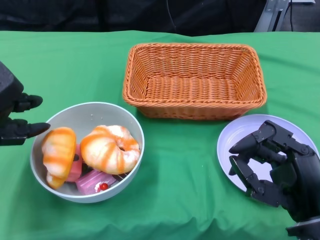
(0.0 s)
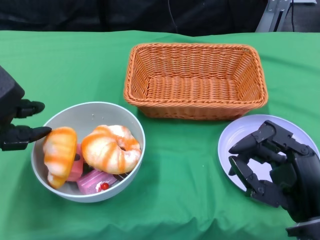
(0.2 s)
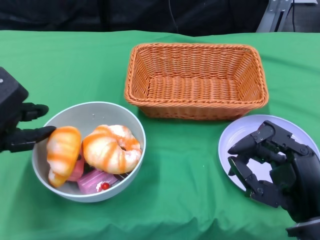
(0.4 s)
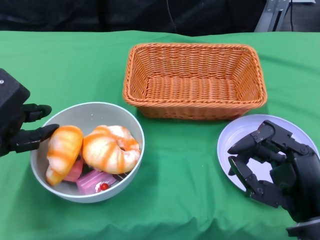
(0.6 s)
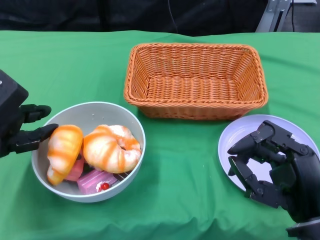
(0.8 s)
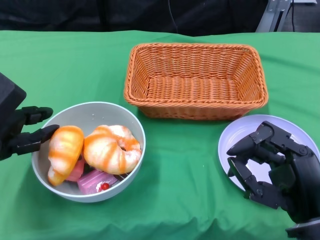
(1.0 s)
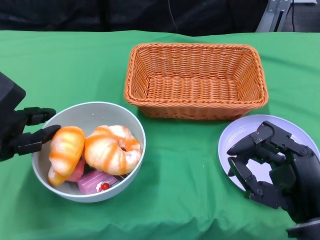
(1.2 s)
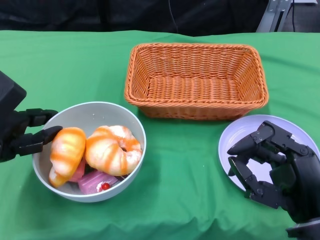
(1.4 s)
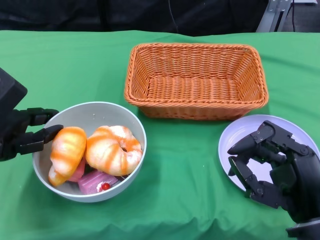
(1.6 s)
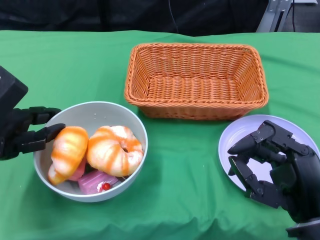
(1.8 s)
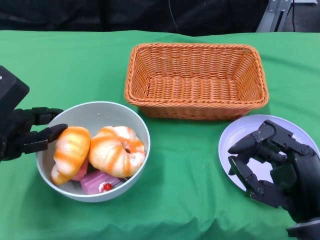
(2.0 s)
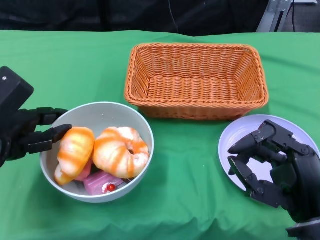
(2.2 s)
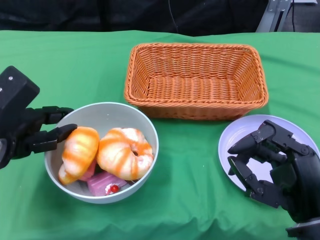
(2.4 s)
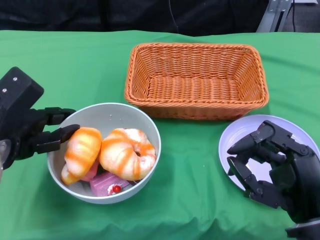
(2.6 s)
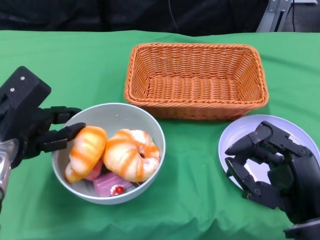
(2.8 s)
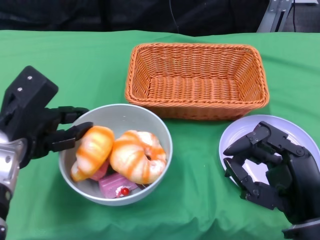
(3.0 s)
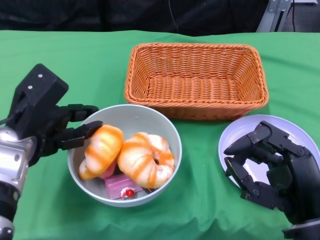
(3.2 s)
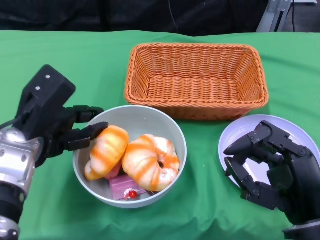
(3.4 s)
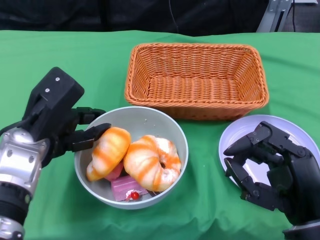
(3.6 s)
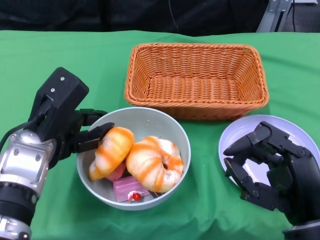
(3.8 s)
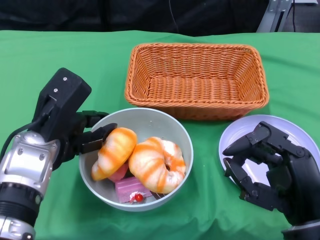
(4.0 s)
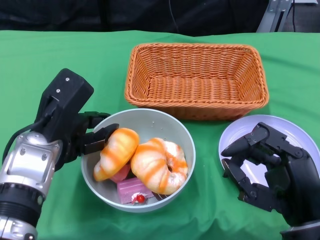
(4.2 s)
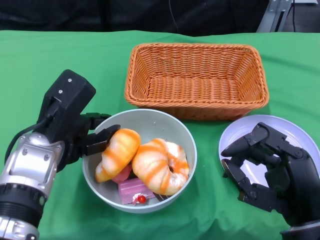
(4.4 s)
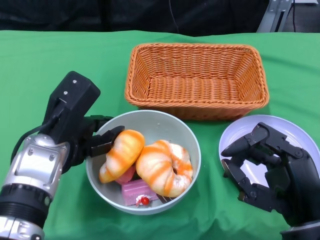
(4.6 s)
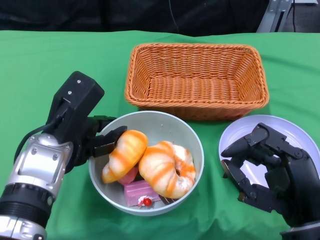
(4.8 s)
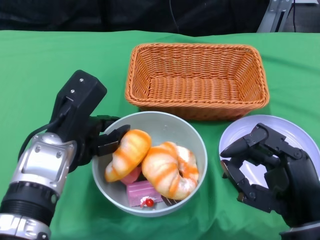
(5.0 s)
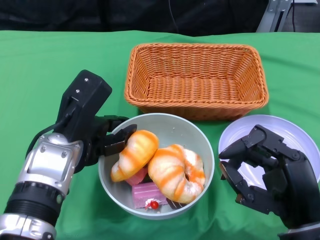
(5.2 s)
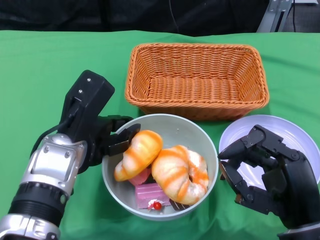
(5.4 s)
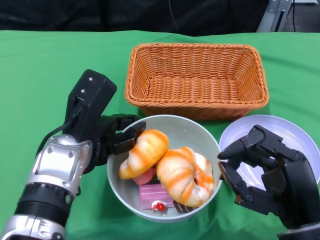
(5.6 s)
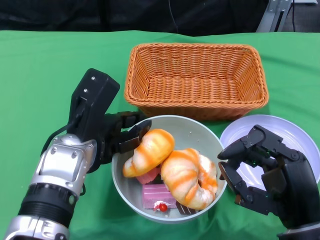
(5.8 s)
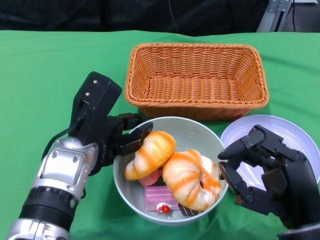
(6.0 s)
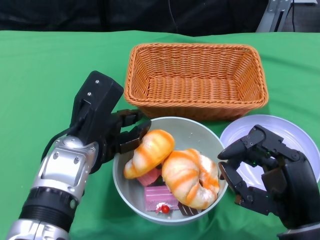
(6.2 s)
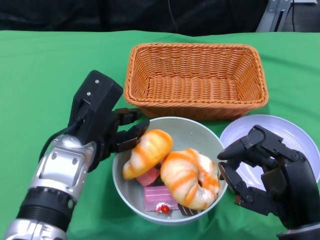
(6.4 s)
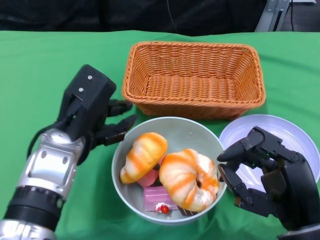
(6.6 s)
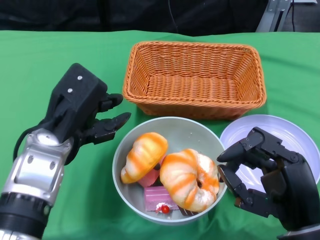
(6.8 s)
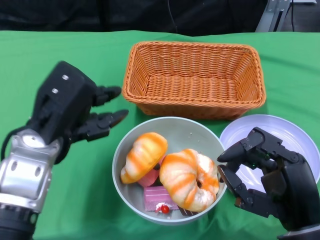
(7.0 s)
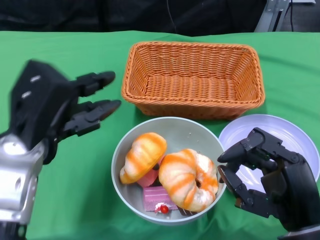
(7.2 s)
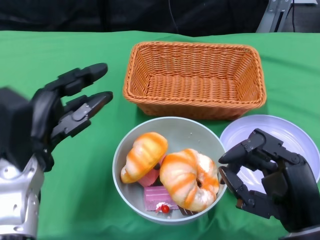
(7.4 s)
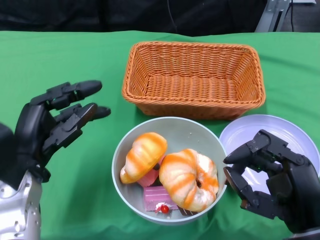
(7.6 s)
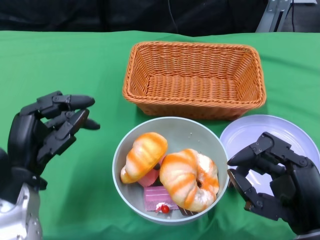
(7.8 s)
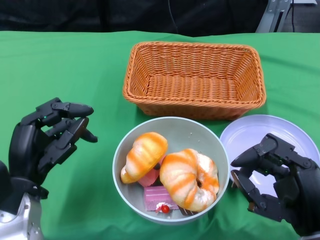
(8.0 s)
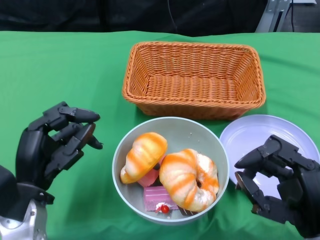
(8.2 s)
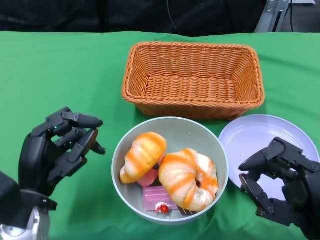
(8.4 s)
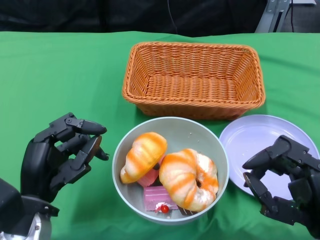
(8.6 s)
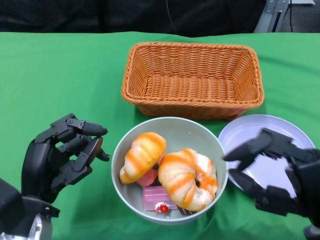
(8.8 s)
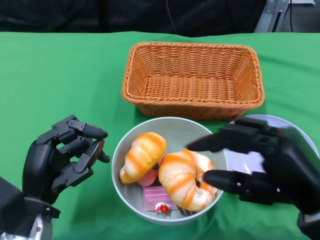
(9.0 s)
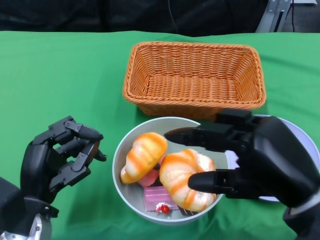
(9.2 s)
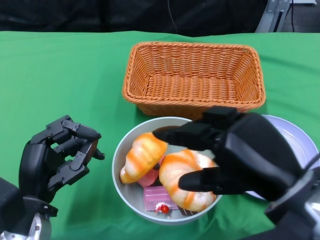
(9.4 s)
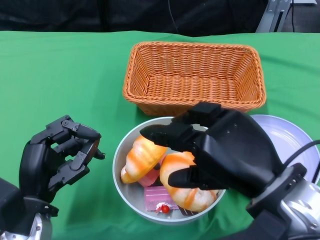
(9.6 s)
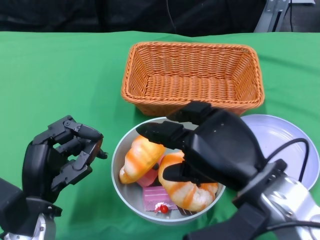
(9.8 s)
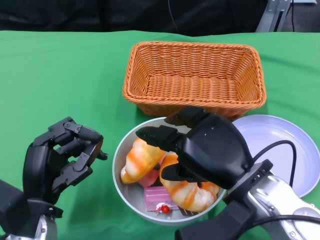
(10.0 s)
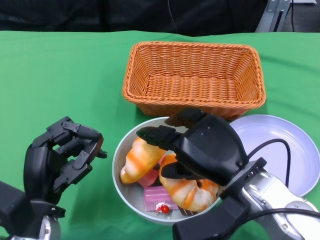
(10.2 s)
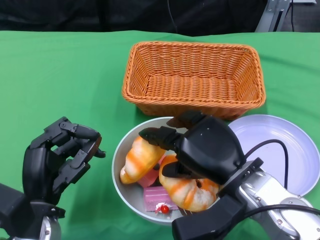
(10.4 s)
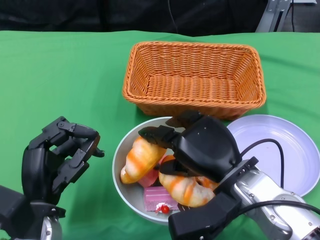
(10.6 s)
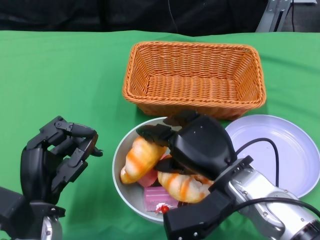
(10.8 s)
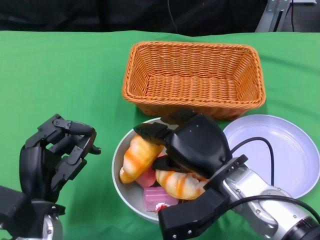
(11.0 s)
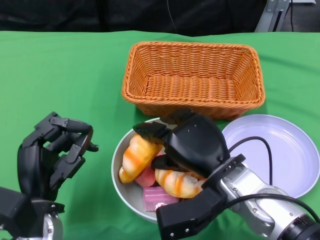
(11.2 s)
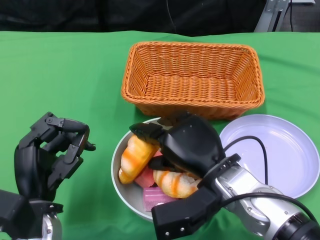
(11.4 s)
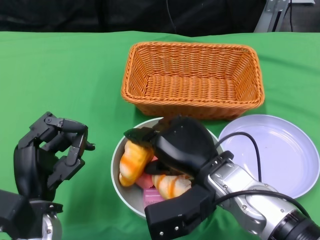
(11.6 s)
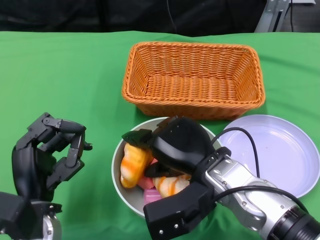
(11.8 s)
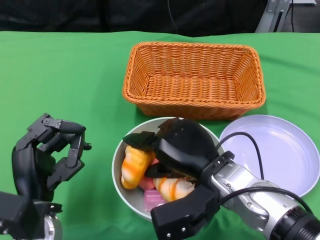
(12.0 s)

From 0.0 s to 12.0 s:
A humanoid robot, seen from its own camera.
Step, from 1.8 s to 8.4 s: Place the bowl in the center of the table with the left gripper.
From 0.0 s to 1.6 s: The hands stay close to where they were, moving slightly.
From 3.0 s to 4.4 s: The left hand shifts about 5 cm to the right.
From 6.0 s to 7.6 s: The left hand goes some 10 cm to the left.
From 7.6 s to 9.0 s: The right hand goes approximately 5 cm upward. Meanwhile the left hand moves some 5 cm.
From 9.0 s to 10.4 s: The right hand moves to the left and forward, approximately 10 cm.

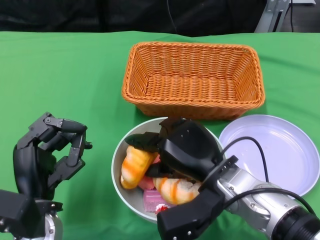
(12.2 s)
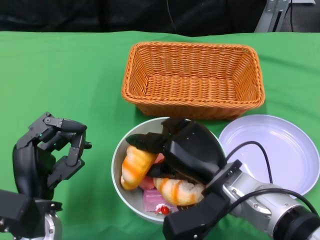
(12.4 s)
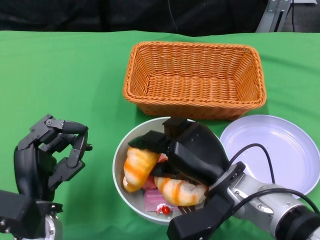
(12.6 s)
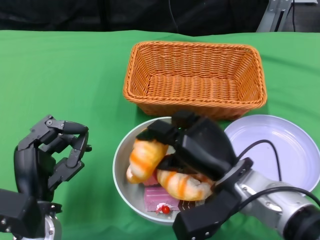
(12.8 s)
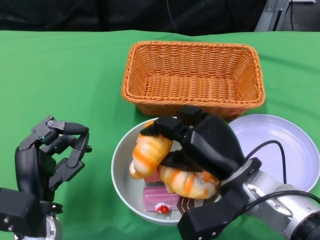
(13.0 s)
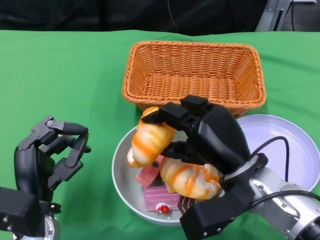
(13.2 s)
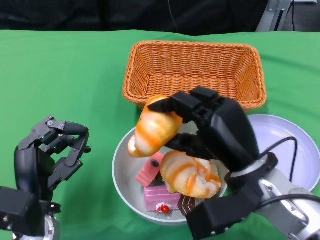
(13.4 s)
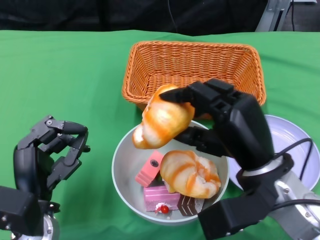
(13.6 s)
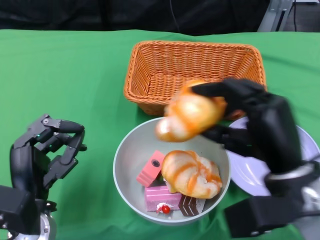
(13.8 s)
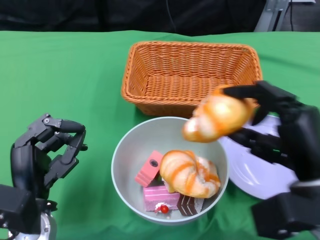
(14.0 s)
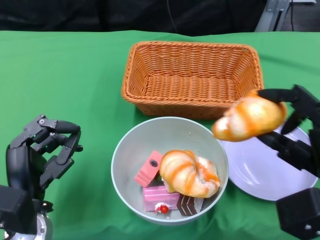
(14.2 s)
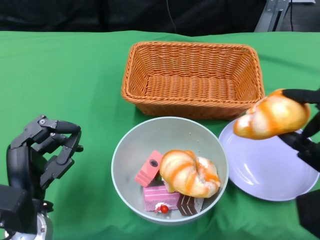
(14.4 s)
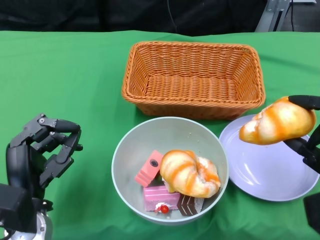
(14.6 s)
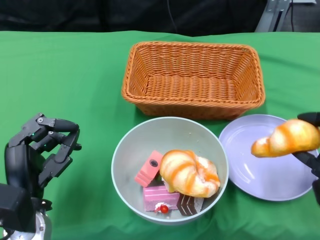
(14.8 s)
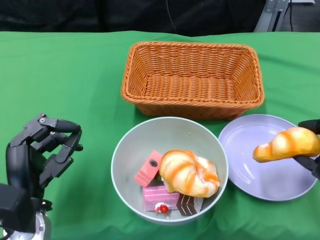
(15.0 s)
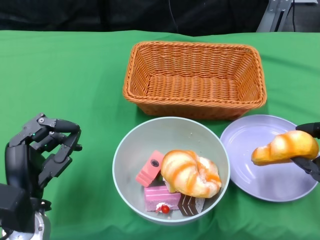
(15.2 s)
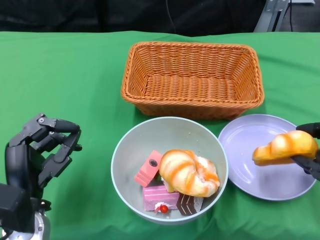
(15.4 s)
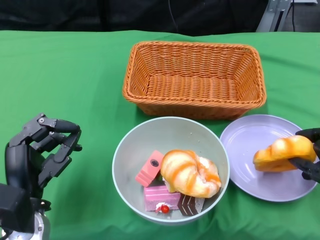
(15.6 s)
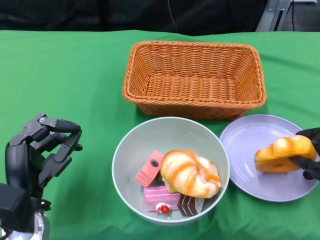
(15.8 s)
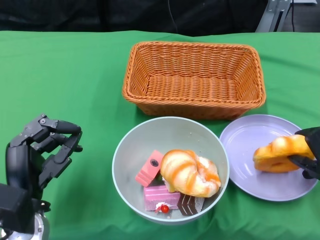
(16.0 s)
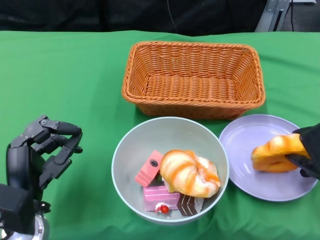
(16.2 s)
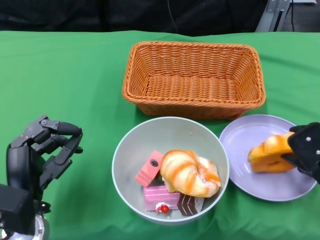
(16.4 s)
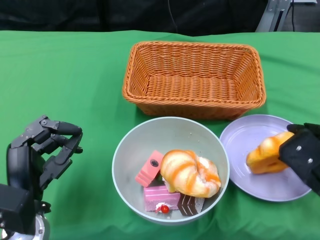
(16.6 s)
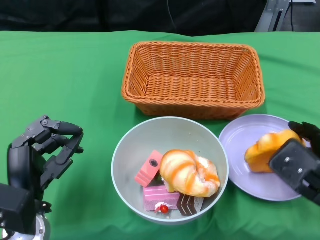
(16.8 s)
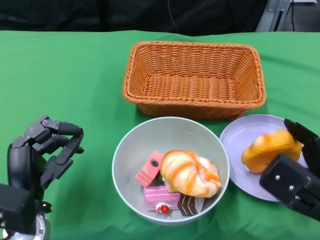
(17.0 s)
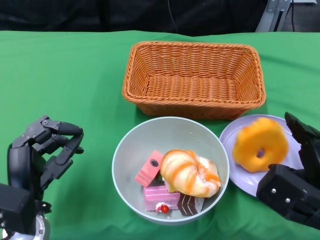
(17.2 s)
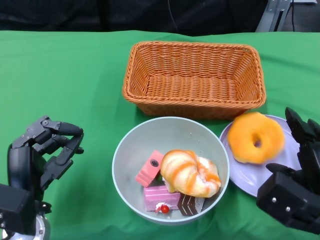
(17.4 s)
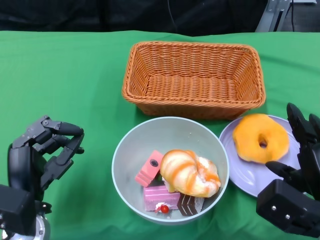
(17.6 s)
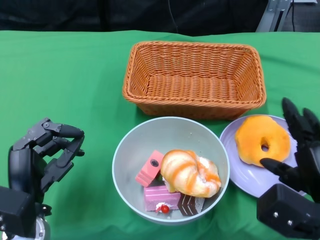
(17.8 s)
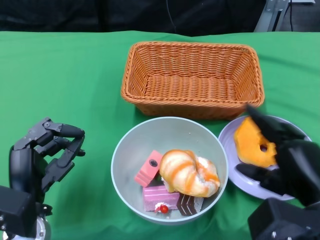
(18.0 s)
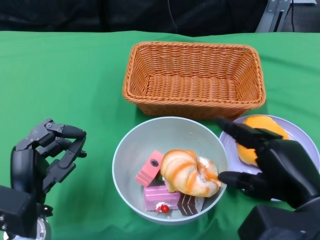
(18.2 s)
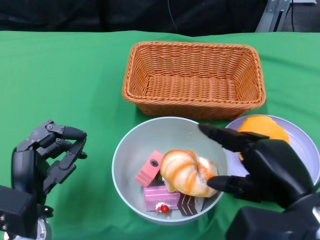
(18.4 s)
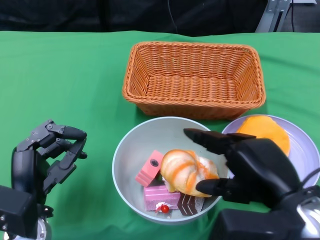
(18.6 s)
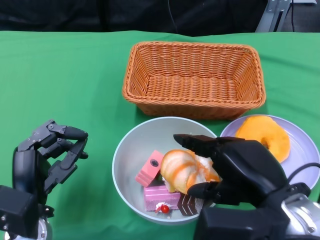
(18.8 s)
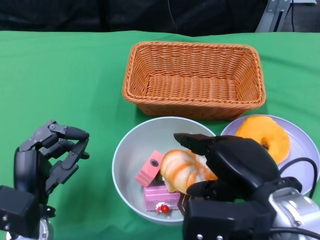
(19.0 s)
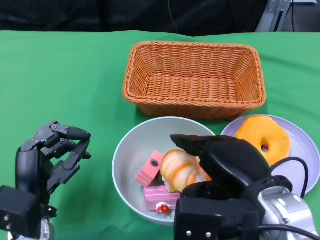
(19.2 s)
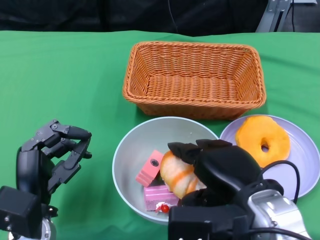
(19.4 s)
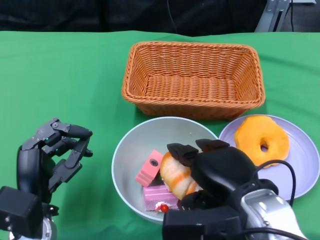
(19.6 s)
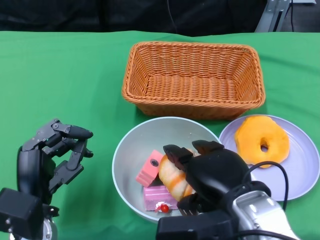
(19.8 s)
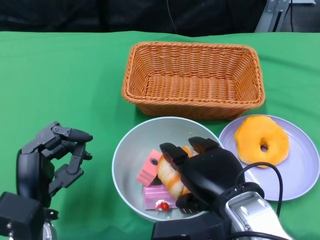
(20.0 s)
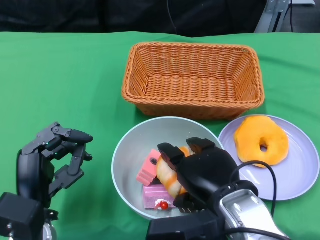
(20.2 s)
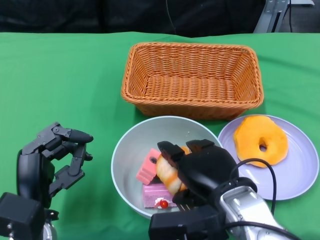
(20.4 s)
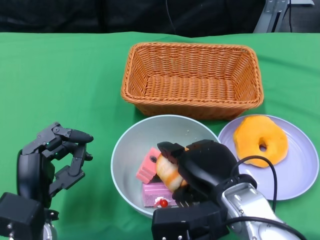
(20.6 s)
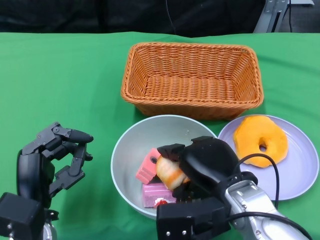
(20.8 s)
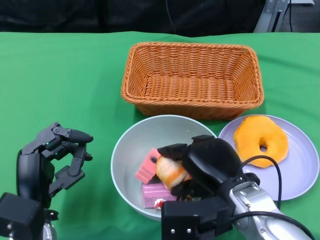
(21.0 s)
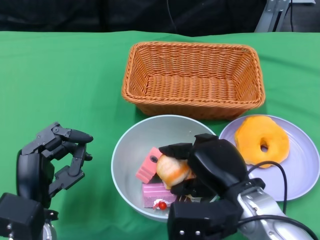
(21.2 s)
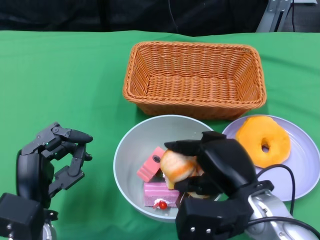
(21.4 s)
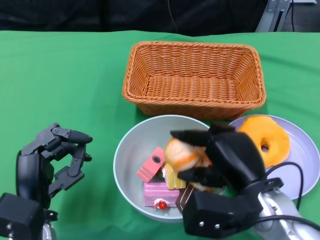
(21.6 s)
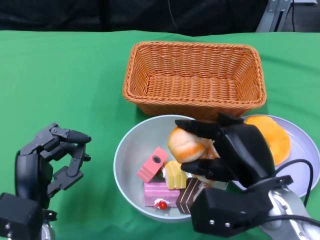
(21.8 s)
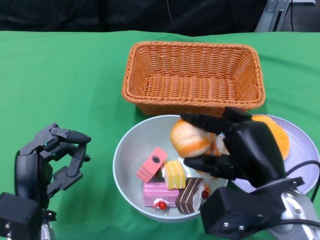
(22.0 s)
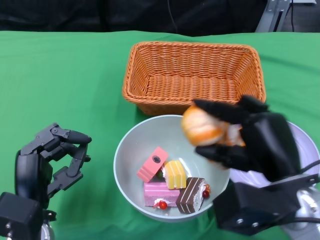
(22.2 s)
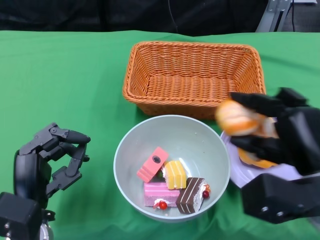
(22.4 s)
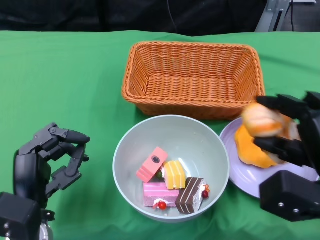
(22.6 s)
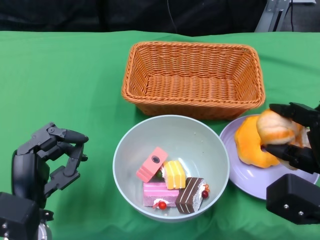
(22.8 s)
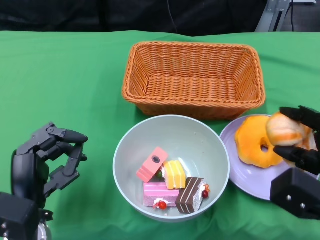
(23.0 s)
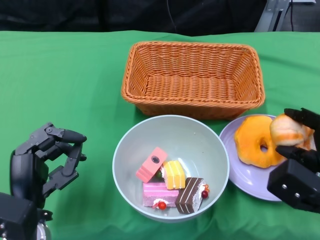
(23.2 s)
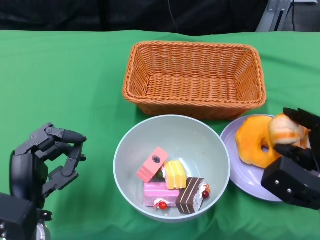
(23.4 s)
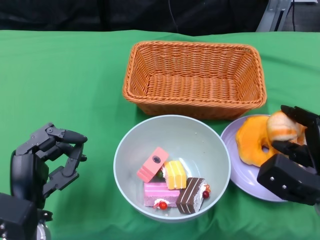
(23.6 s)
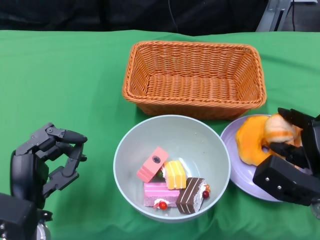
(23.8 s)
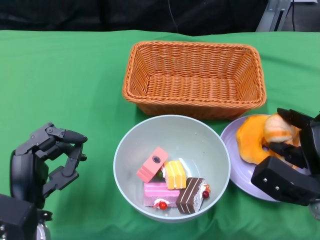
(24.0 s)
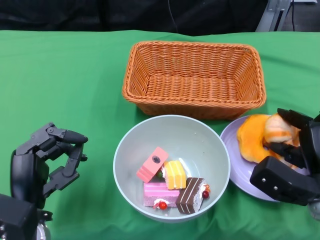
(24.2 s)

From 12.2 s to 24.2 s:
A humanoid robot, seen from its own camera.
From 12.2 s to 13.8 s: The right hand travels to the right by roughly 5 cm.
From 13.8 s to 15.2 s: The right hand is displaced to the right by roughly 10 cm.
From 15.2 s to 16.6 s: The hands make only small movements.
From 16.6 s to 18.2 s: The right hand shifts by roughly 5 cm.
From 18.2 s to 19.8 s: The right hand travels to the left by about 10 cm.
From 19.8 s to 21.2 s: The right hand shifts by approximately 5 cm.
From 21.2 s to 22.6 s: The right hand is displaced to the right by some 10 cm.
From 22.6 s to 24.2 s: The right hand travels downward by some 10 cm.
